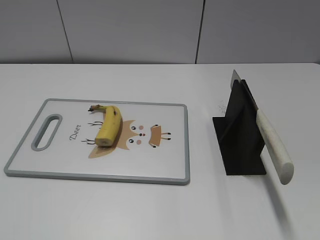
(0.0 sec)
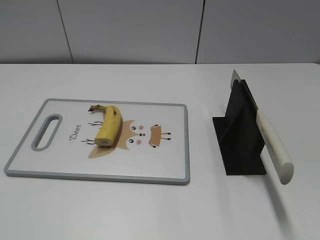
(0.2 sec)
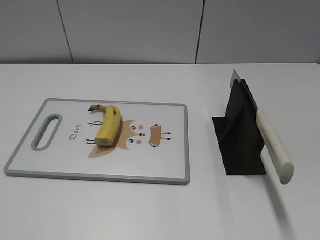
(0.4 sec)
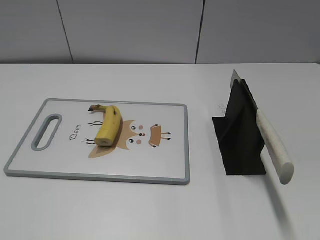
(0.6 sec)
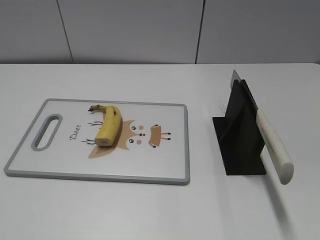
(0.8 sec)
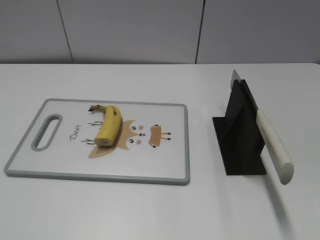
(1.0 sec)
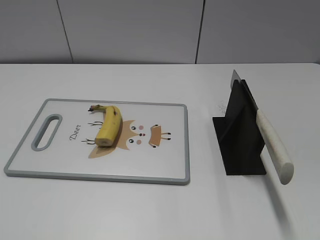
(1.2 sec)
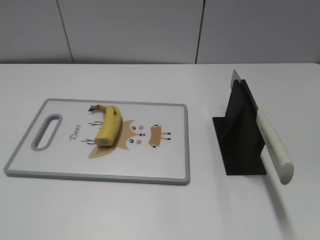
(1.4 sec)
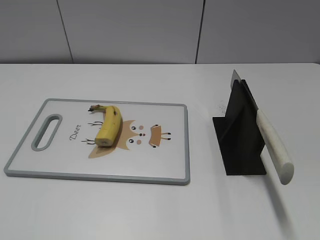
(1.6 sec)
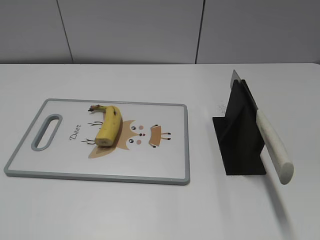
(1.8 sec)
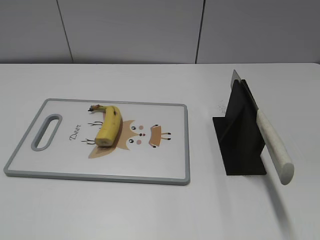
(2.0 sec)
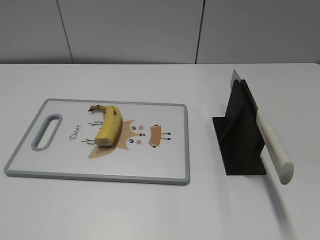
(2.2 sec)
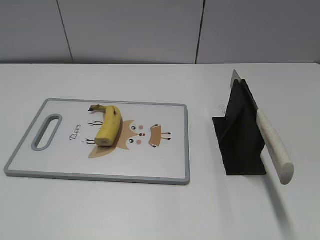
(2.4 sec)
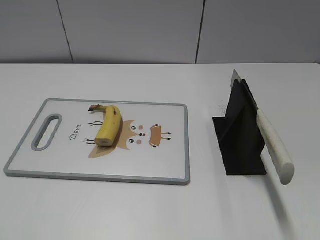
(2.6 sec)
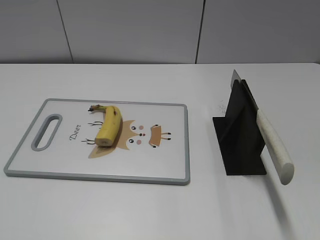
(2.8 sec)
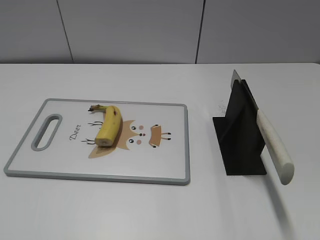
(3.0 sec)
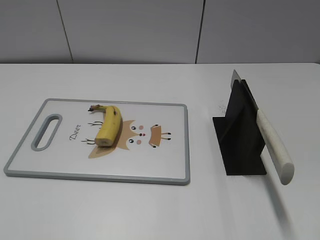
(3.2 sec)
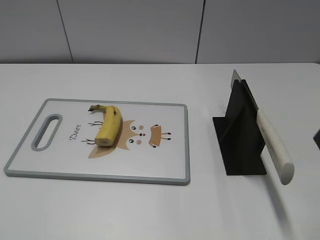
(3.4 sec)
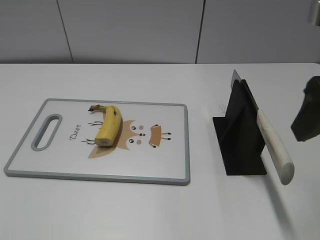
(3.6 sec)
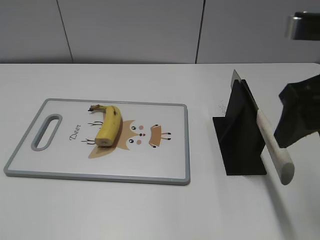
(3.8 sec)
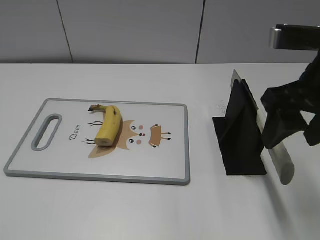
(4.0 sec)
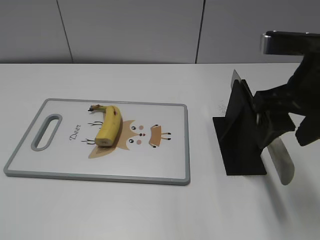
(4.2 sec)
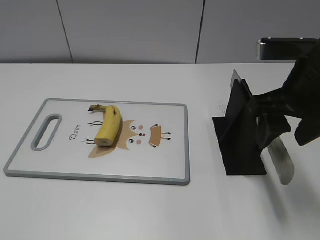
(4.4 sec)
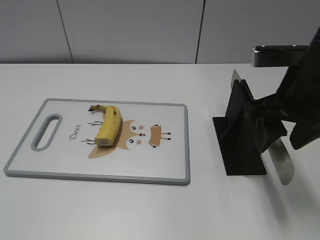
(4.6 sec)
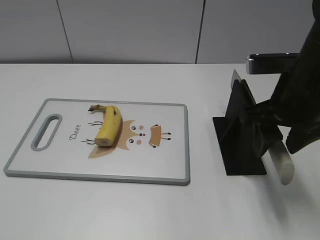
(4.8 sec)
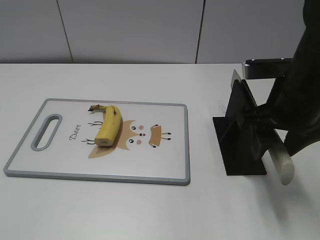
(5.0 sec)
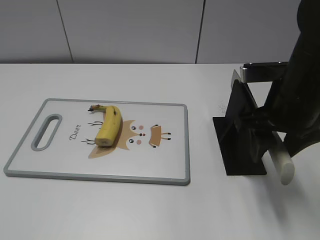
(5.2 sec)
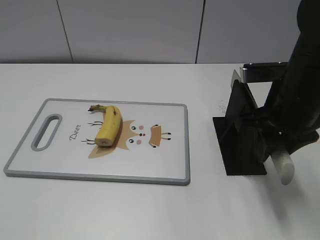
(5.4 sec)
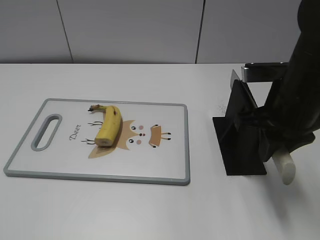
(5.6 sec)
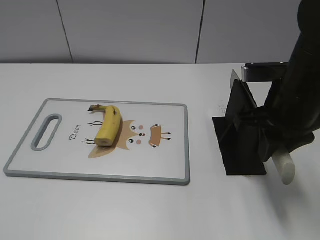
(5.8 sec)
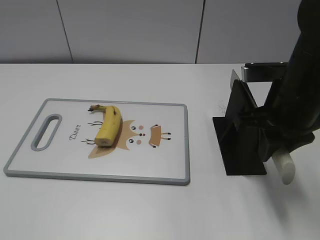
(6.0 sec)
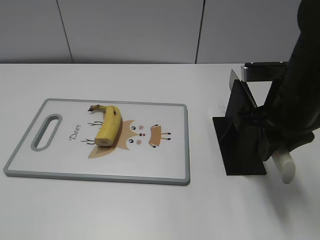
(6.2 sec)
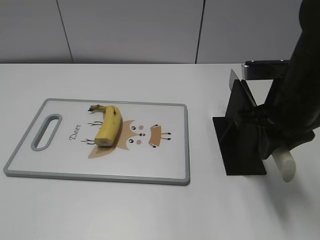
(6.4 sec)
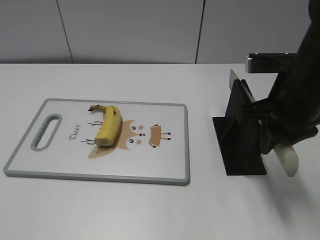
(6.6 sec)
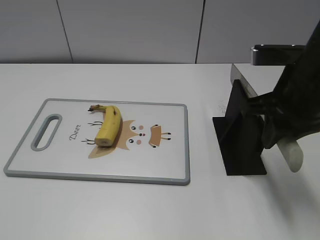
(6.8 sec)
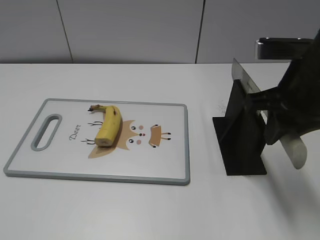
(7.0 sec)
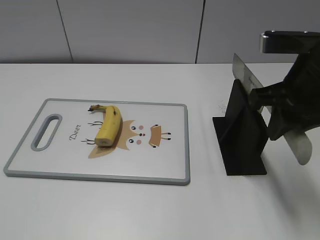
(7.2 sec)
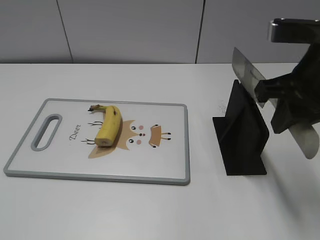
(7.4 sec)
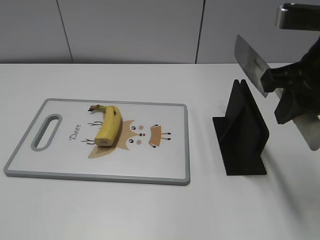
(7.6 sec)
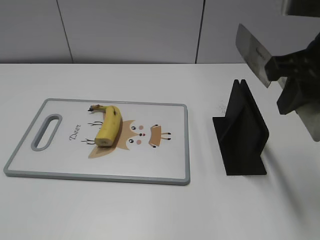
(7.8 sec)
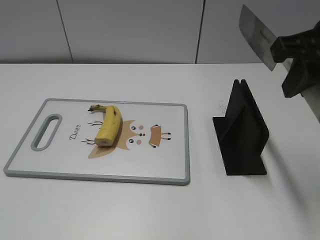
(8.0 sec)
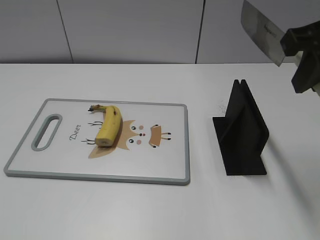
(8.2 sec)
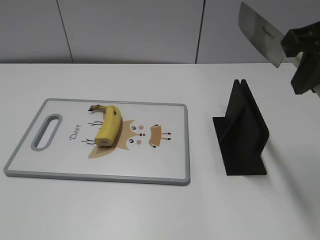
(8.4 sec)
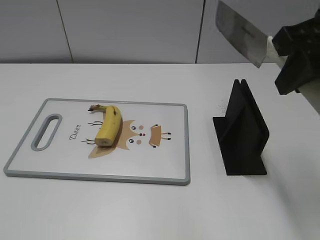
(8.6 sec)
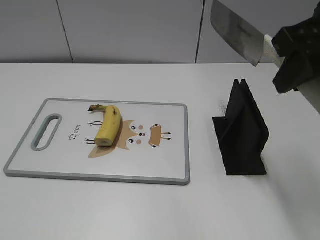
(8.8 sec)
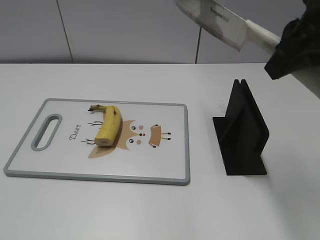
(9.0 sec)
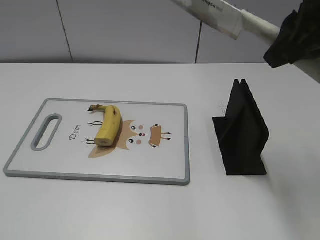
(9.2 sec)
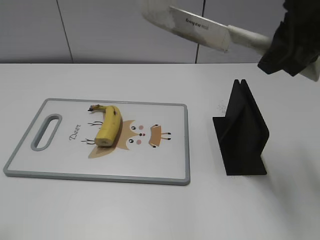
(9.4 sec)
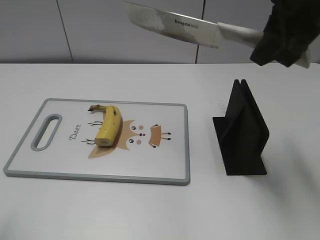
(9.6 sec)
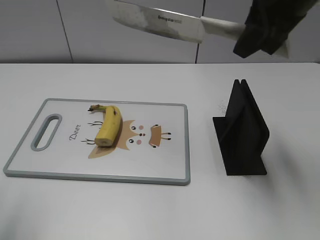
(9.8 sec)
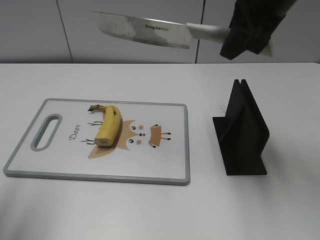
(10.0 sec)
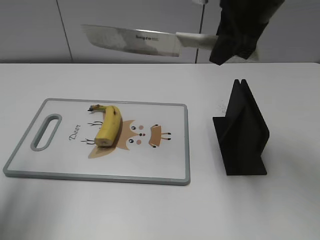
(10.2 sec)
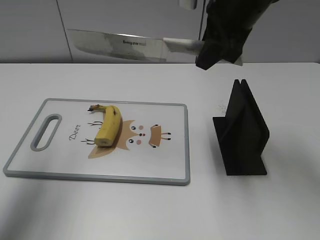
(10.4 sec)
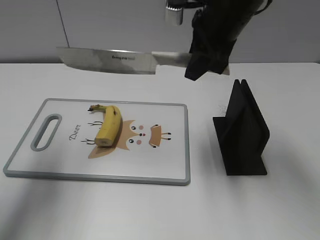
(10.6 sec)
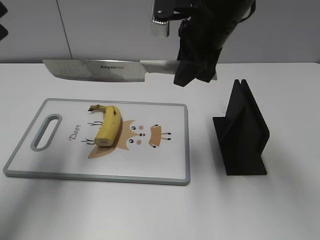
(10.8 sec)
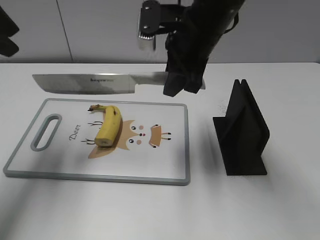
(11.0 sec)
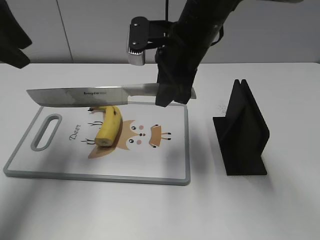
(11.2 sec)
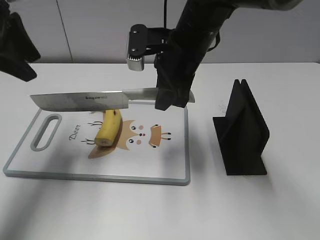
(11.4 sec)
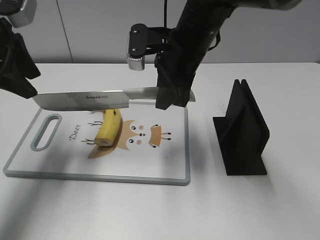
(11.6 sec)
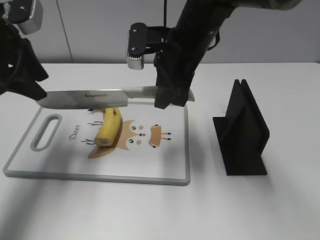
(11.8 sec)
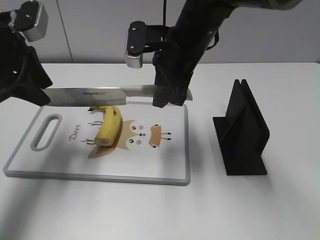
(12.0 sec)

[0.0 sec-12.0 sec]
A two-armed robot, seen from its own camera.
Task of the whole recording: cut banana.
Step, 0.0 sec to 6.8 sec: Grab the knife handle with your right hand.
3.0 sec to 4.4 sec: The right gripper travels forward, to the left and downward by about 15 cm.
4.4 sec to 6.0 sec: The right gripper closes up.
6.0 sec to 7.6 sec: The right gripper moves upward, roughly 5 cm.
7.6 sec to 9.0 sec: The right gripper heads upward, covering approximately 5 cm.
9.0 sec to 10.4 sec: The right gripper is displaced forward and to the left by about 15 cm. The left gripper heads forward and upward, covering approximately 25 cm.
10.4 sec to 12.0 sec: The left gripper shifts roughly 15 cm downward and forward; the right gripper goes roughly 10 cm downward and to the left.

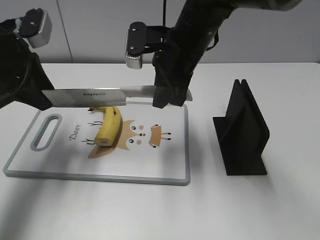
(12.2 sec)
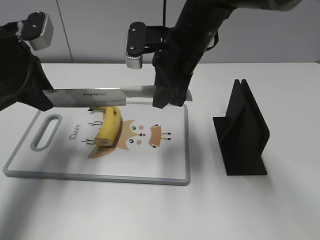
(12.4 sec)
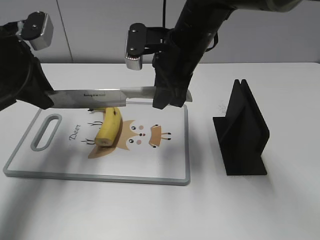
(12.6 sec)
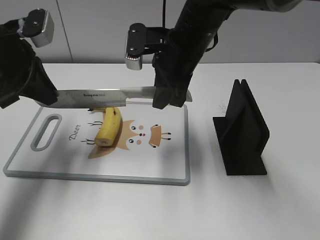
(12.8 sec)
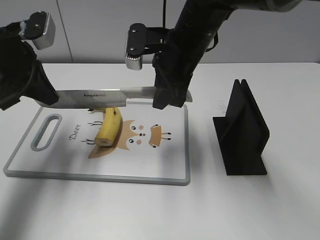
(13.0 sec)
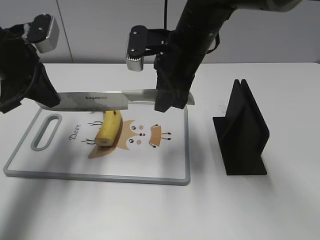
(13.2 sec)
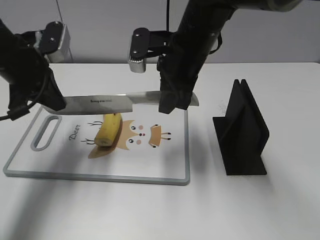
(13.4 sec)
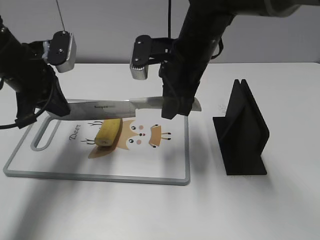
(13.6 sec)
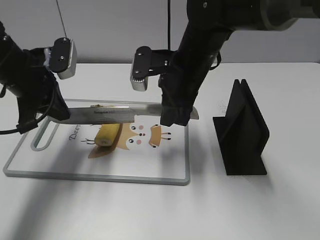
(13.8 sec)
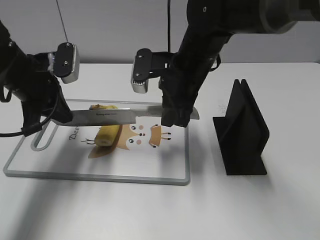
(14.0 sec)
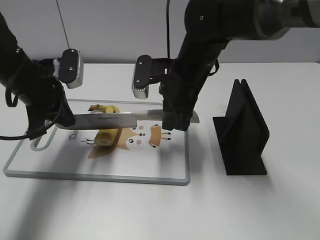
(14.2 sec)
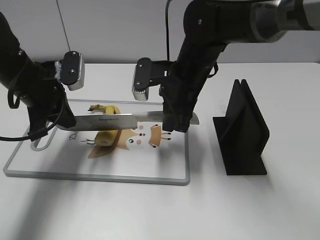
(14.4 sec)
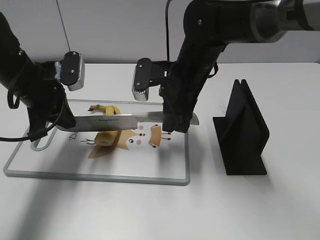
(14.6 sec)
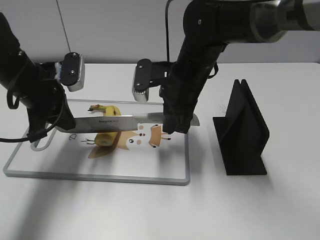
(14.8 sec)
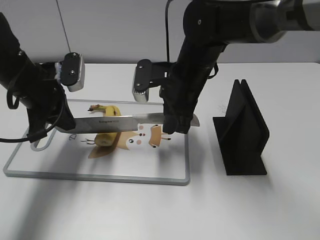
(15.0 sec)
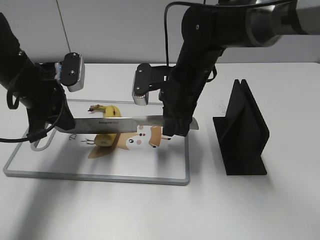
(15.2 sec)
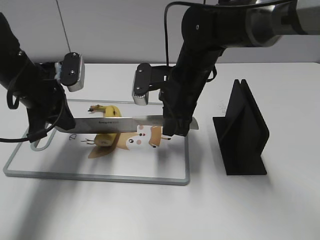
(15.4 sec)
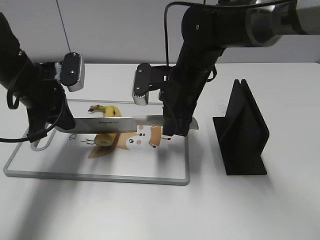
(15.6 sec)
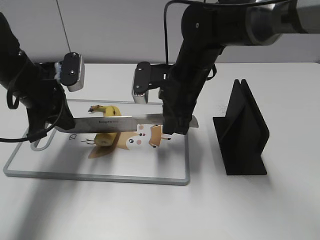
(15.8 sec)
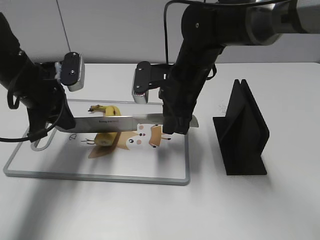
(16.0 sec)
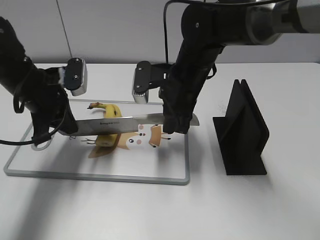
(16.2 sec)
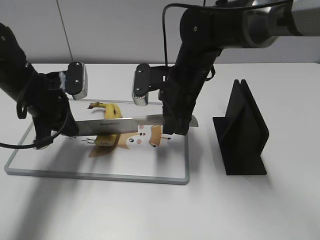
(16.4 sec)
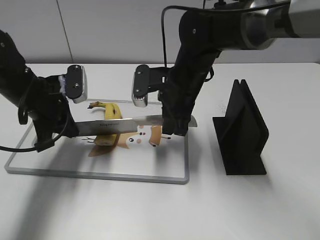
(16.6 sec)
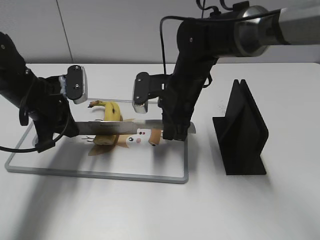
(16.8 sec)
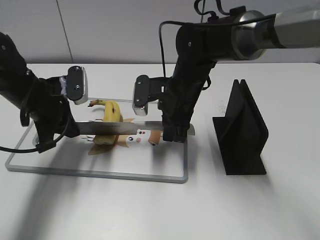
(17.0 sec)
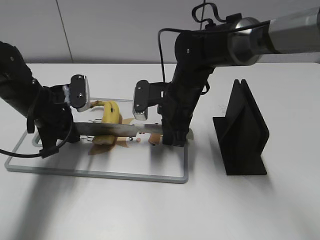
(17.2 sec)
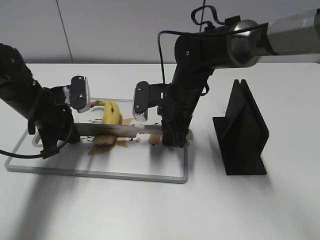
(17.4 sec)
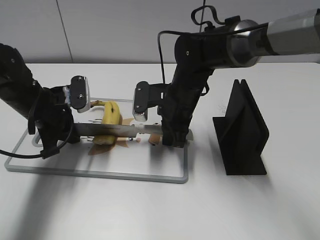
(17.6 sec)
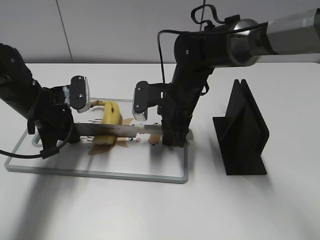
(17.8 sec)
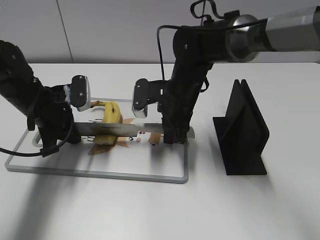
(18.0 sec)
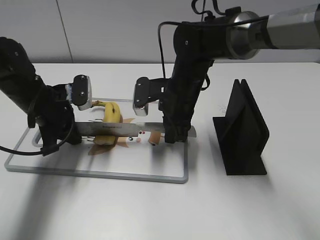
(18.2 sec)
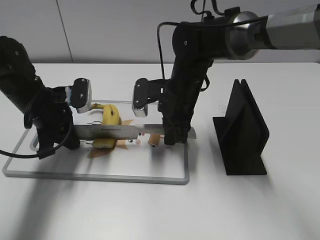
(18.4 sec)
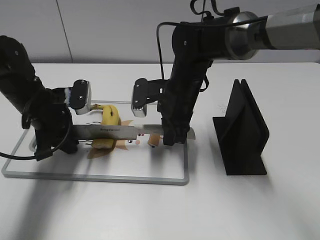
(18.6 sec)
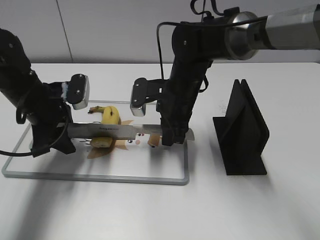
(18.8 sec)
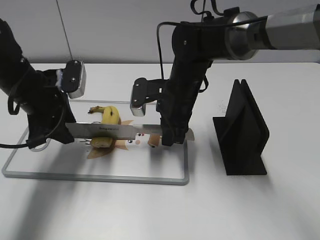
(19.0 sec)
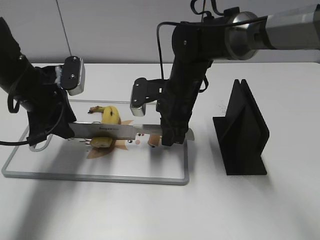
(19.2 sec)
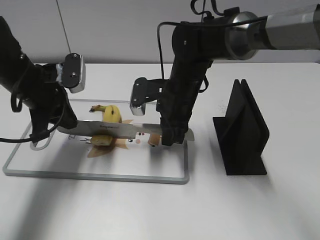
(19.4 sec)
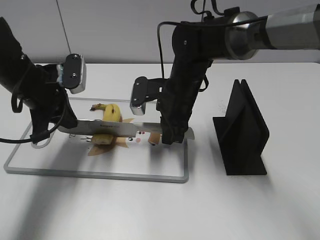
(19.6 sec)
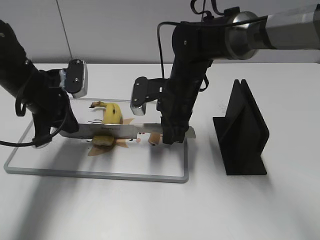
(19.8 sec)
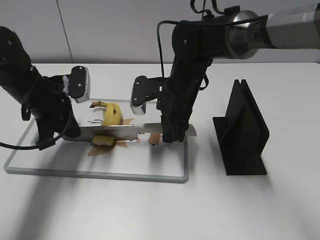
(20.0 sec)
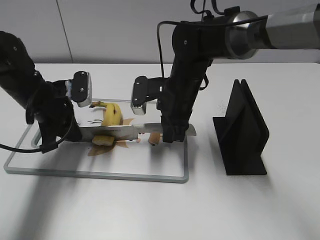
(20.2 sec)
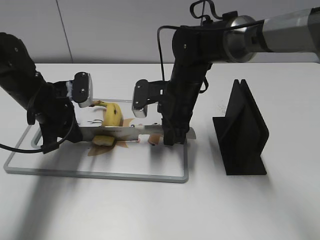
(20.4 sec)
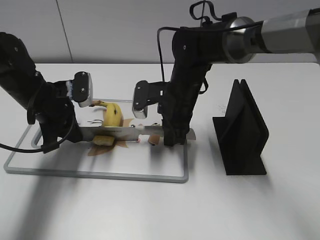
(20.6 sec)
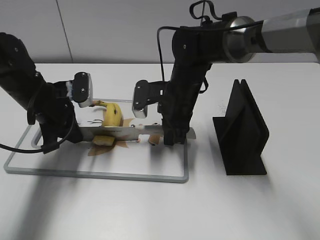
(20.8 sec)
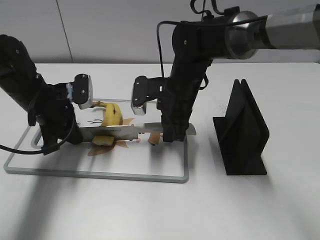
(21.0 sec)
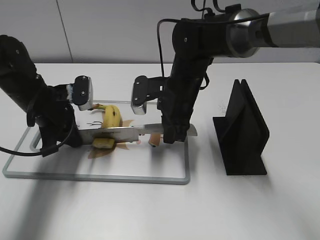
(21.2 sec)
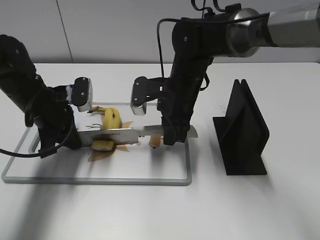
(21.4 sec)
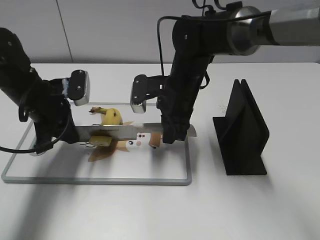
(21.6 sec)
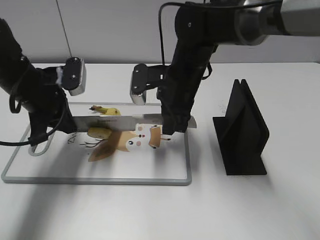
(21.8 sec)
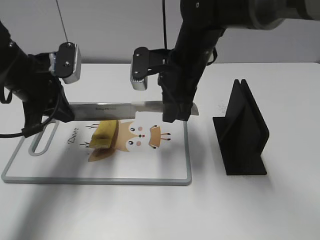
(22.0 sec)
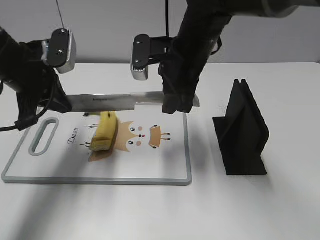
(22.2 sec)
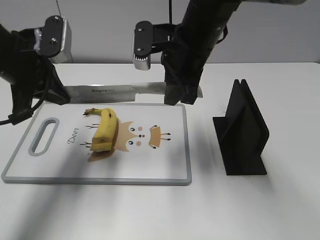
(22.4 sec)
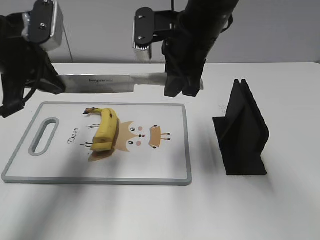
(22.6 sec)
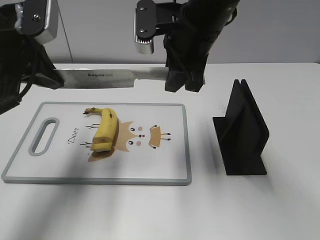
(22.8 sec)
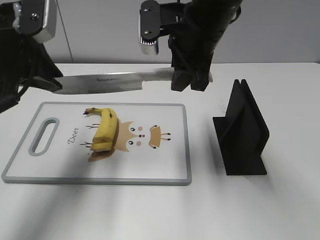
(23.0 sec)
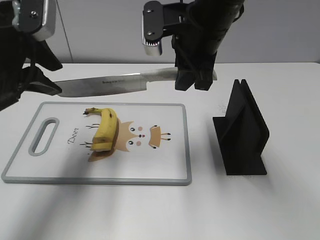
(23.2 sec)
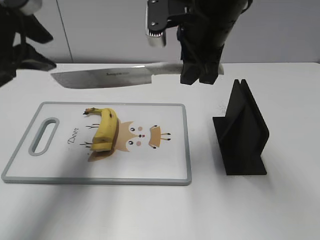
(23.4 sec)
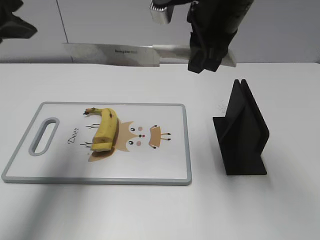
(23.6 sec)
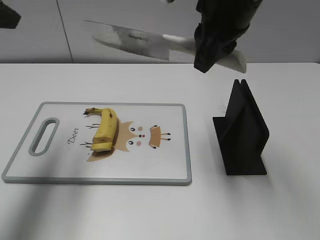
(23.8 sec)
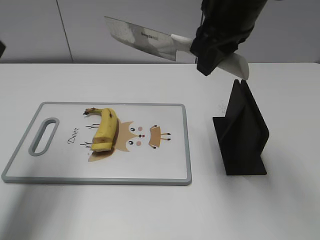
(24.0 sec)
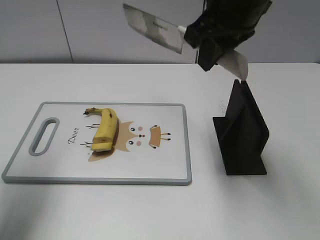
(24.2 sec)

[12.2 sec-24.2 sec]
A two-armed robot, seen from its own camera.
Task of the whole recording: cut banana.
Step, 12.2 sec to 16.0 sec: Lift the knife with your right hand.
12.2 sec to 13.8 sec: The left gripper moves approximately 5 cm, and closes up.
13.8 sec to 16.6 sec: The grippers stay close to where they were, moving slightly.
16.6 sec to 18.2 sec: The grippers stay close to where they were, moving slightly.
18.2 sec to 19.8 sec: The left gripper opens, then closes once more.
19.8 sec to 21.2 sec: The grippers stay close to where they were, moving slightly.
21.2 sec to 22.6 sec: The grippers both shift upward by approximately 15 cm.
22.6 sec to 24.2 sec: The right gripper shifts roughly 10 cm upward, while the left gripper goes roughly 10 cm to the left, upward and backward, and opens its fingers.
